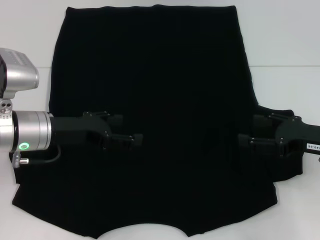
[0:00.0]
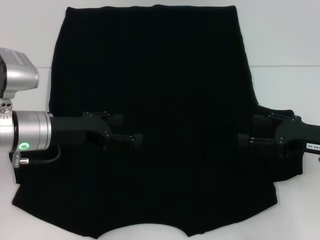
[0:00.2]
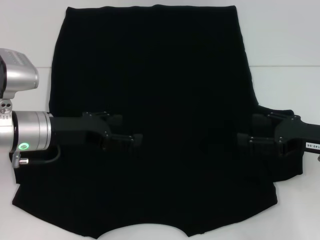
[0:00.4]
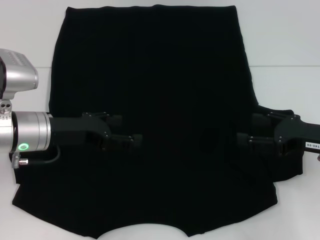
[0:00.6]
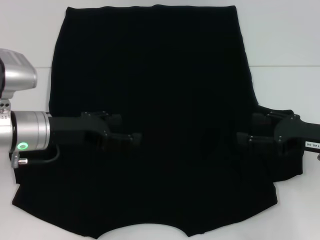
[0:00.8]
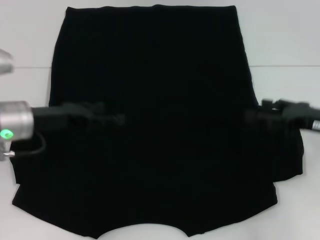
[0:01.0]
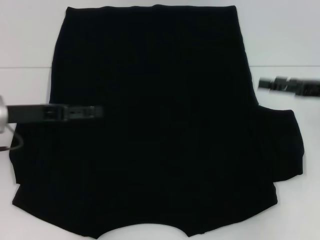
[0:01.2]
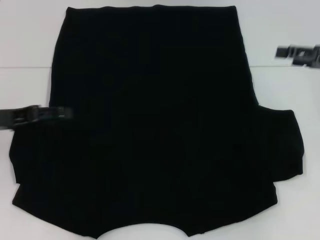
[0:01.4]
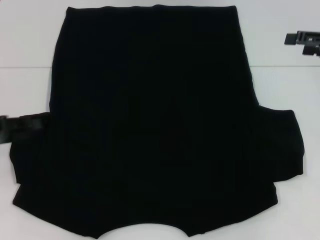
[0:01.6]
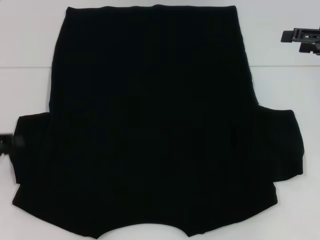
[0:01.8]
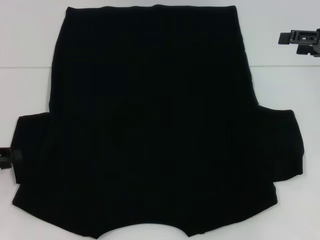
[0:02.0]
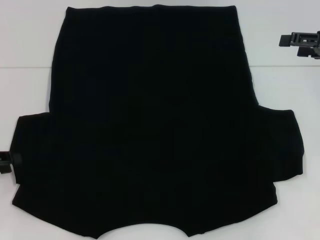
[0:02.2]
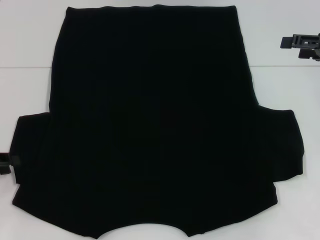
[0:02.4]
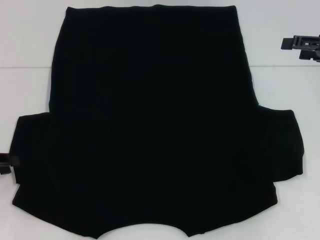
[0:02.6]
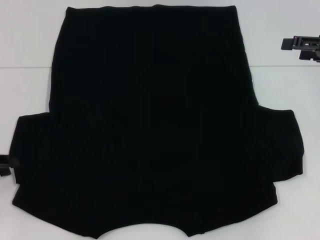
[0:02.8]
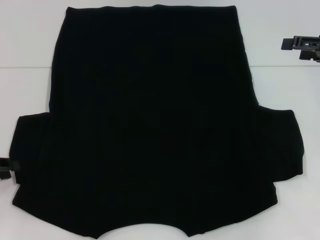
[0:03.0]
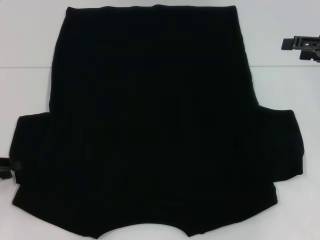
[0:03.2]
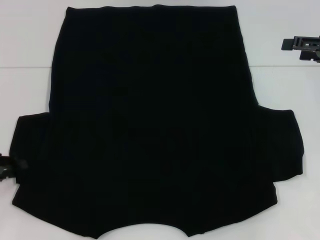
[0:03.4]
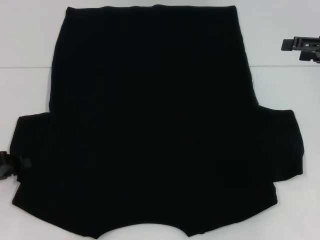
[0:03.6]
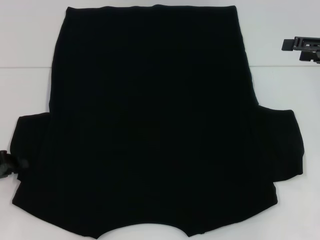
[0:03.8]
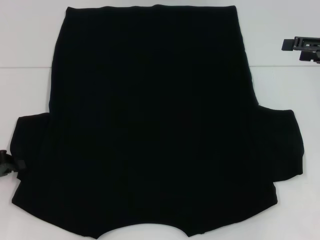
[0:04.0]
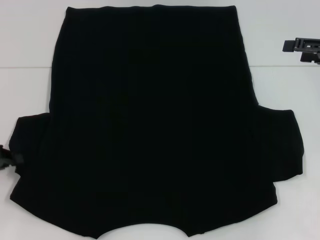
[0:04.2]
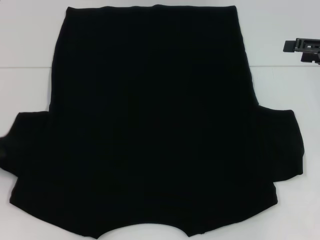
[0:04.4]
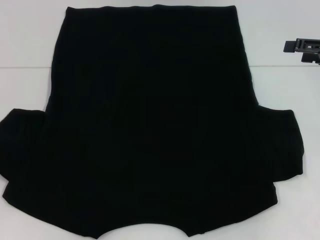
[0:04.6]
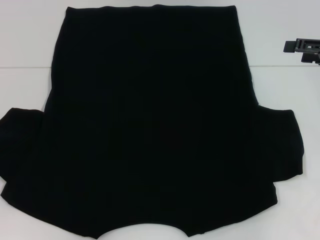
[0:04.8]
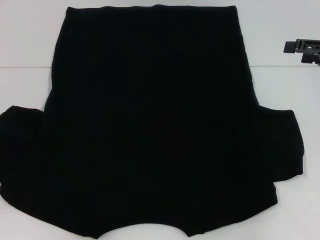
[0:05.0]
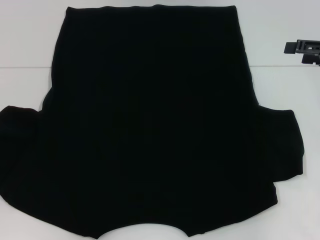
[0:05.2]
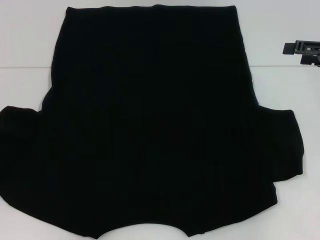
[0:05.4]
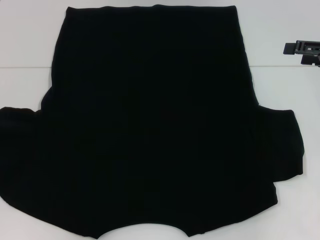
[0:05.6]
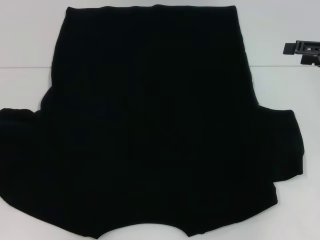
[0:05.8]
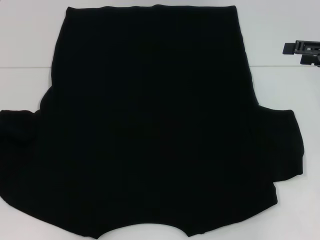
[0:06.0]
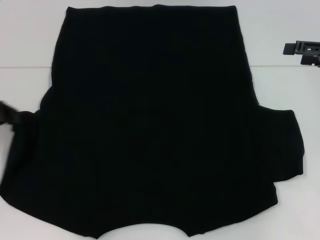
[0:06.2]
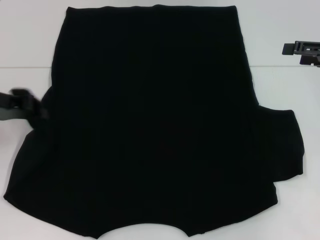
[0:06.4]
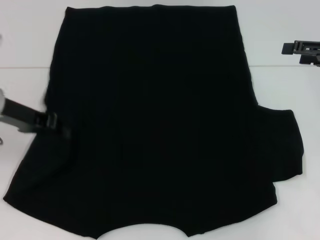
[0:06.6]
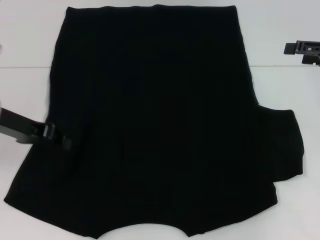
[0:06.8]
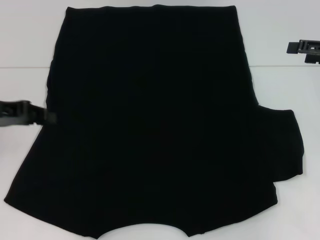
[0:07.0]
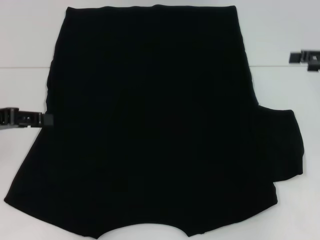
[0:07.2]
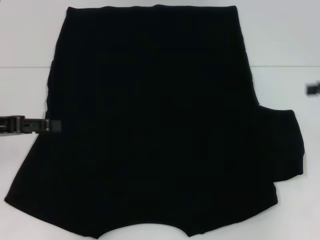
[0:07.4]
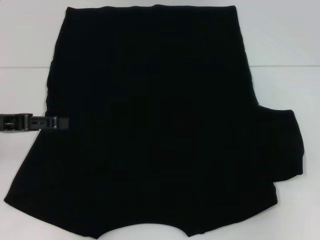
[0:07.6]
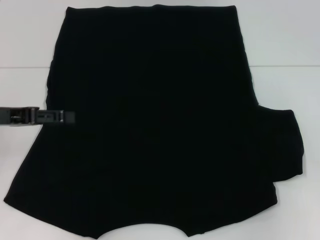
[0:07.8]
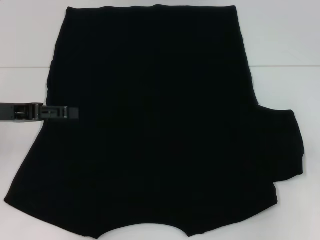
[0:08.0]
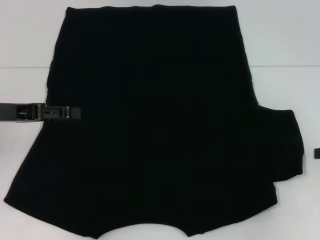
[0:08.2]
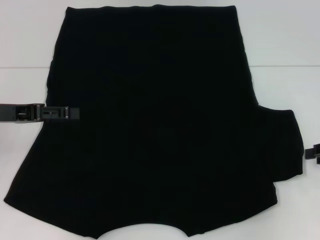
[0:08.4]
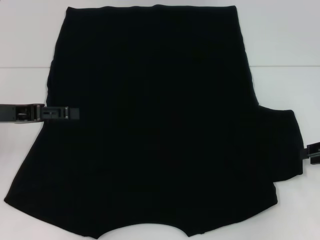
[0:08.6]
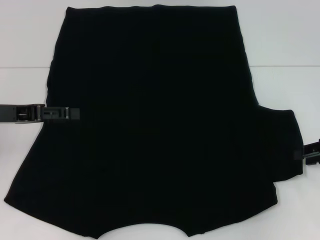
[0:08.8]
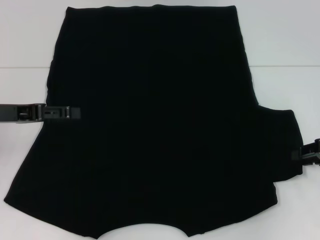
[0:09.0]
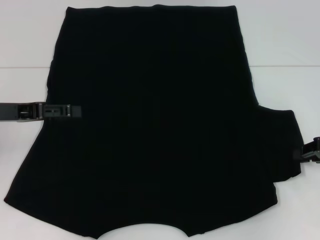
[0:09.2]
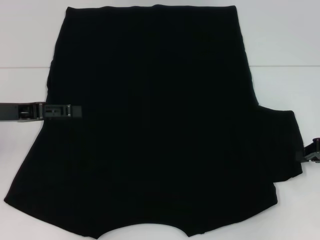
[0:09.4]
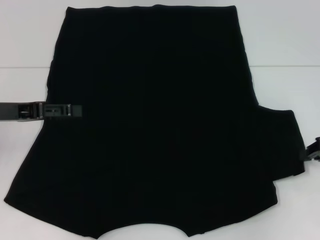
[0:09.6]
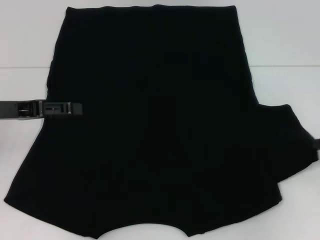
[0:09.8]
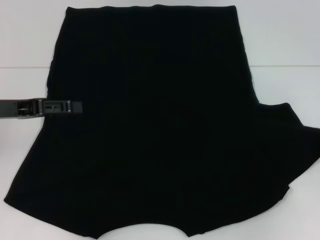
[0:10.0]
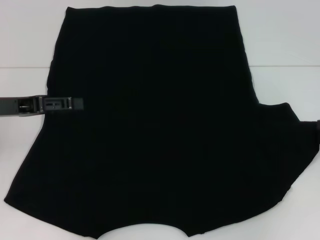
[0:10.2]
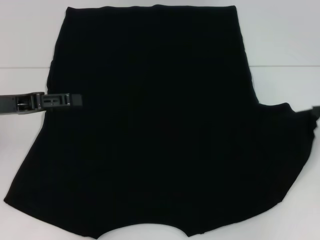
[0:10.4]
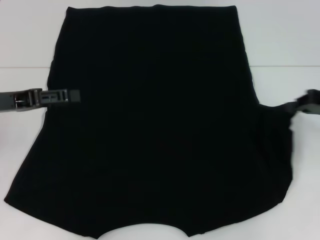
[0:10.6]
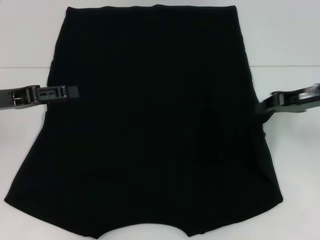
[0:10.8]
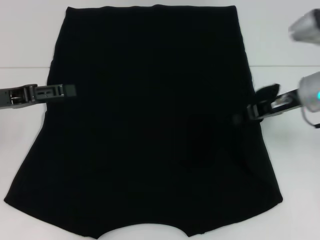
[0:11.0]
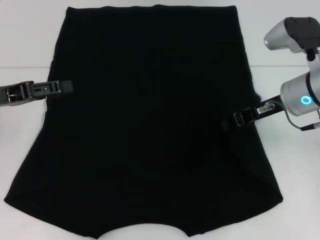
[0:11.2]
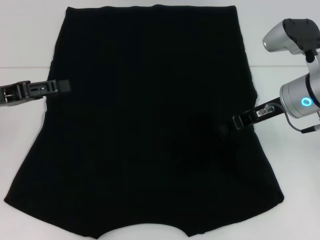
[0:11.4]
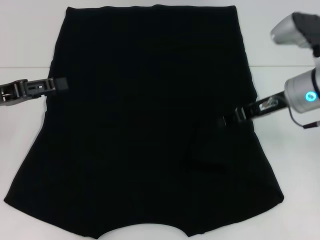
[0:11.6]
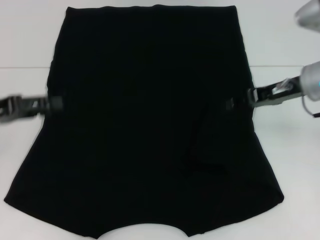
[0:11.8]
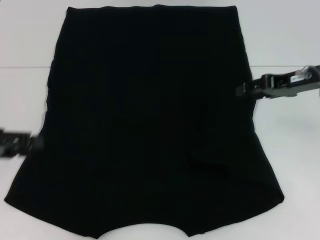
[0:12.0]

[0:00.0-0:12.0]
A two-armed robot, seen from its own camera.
Step, 0.0 to 7.4 s: Fold the bottom left sleeve with your left hand.
Step, 7.6 to 11.4 s: Fold the bottom right sleeve with your right hand.
0.0 to 1.6 s: The right gripper goes about 15 cm upward and forward; the left gripper goes approximately 15 cm to the left.
1.6 to 3.0 s: The left gripper ends up roughly 5 cm from where it was.
3.0 to 4.4 s: The left gripper closes its fingers.
4.4 to 6.0 s: The left gripper ends up approximately 5 cm from where it was.
6.0 to 7.6 s: The left gripper travels to the right by some 10 cm, and opens, while the right gripper heads to the right and backward, covering roughly 10 cm.
9.0 to 10.4 s: The right gripper moves about 5 cm, and closes.
10.4 to 12.0 s: The left gripper shifts by about 5 cm. Meanwhile the right gripper is displaced to the left by approximately 10 cm, and opens.

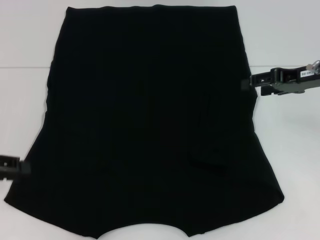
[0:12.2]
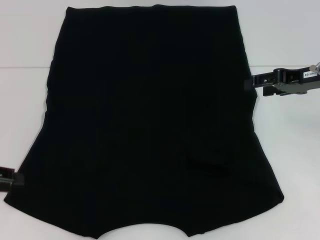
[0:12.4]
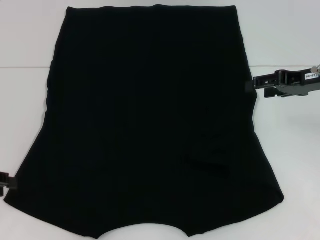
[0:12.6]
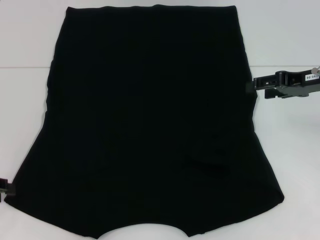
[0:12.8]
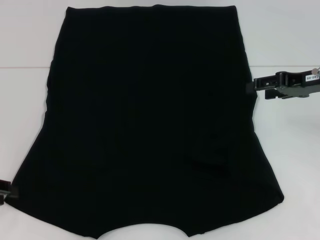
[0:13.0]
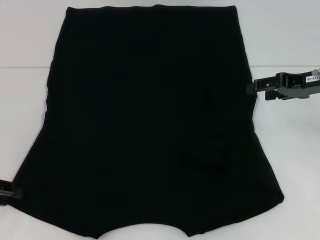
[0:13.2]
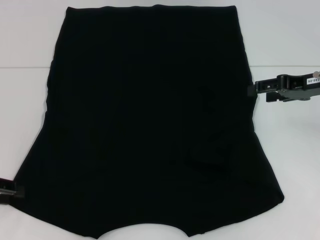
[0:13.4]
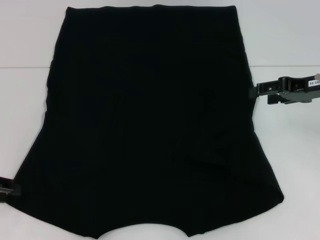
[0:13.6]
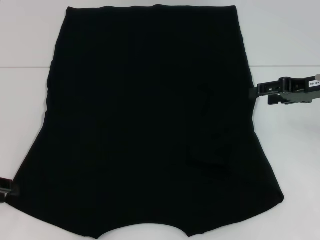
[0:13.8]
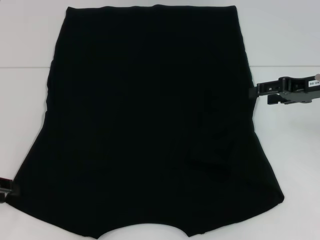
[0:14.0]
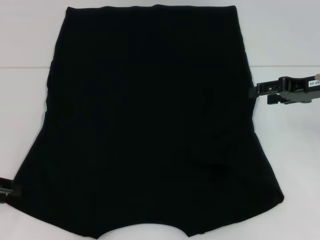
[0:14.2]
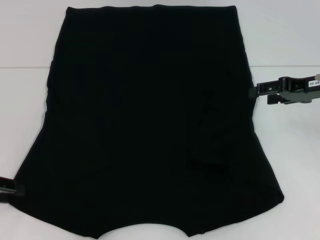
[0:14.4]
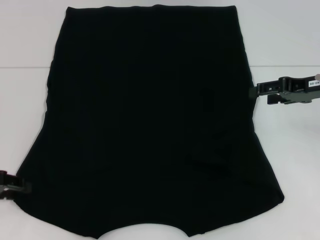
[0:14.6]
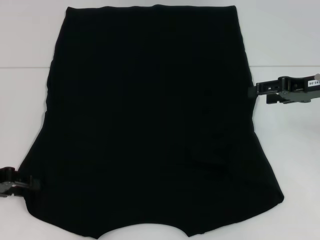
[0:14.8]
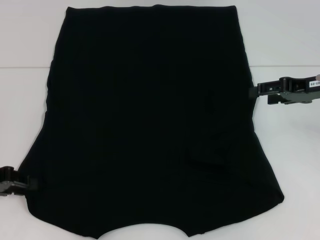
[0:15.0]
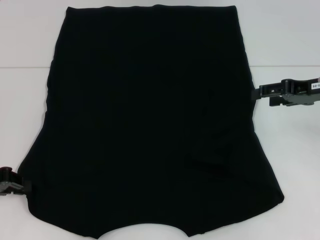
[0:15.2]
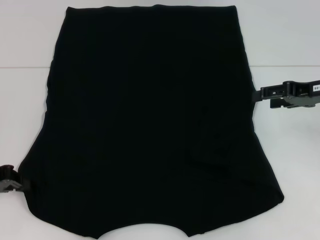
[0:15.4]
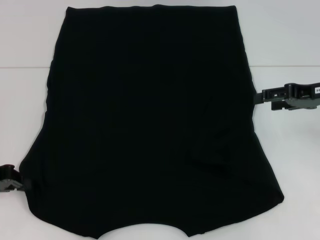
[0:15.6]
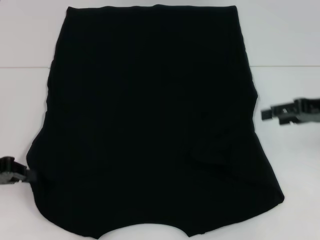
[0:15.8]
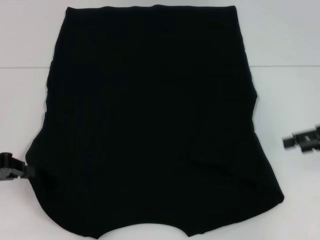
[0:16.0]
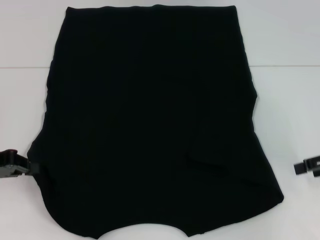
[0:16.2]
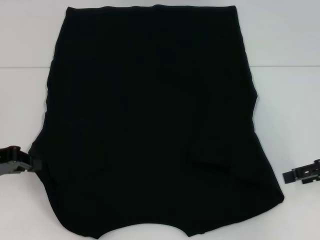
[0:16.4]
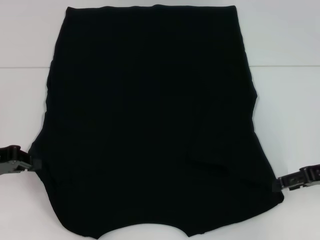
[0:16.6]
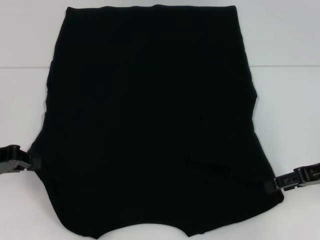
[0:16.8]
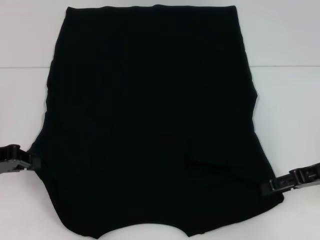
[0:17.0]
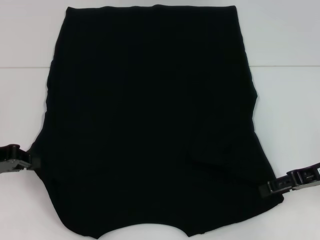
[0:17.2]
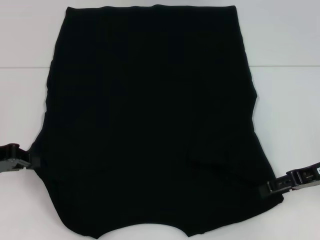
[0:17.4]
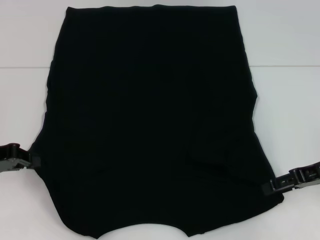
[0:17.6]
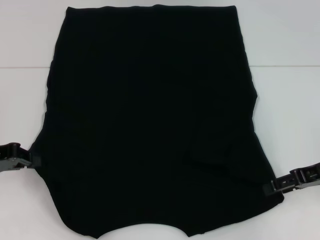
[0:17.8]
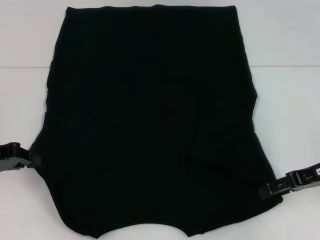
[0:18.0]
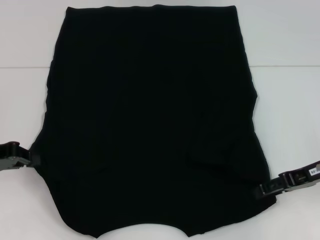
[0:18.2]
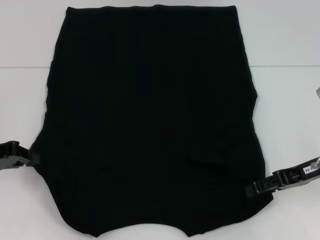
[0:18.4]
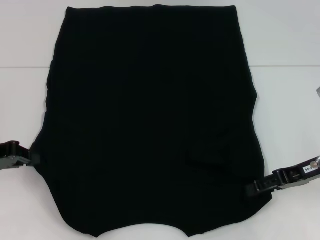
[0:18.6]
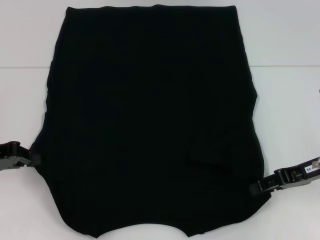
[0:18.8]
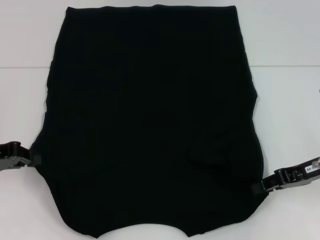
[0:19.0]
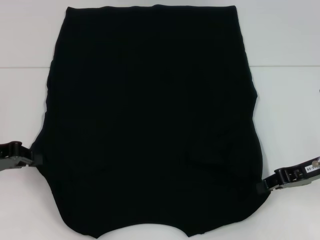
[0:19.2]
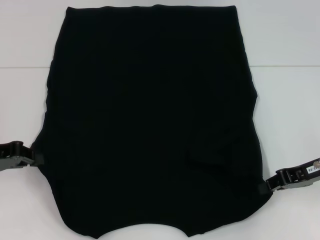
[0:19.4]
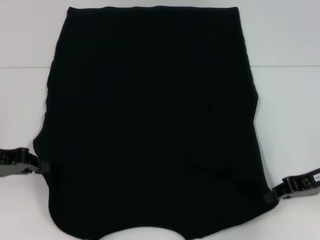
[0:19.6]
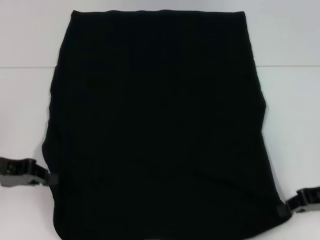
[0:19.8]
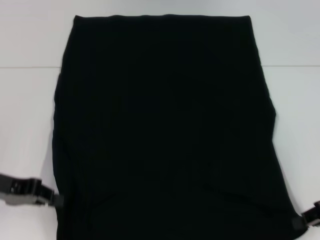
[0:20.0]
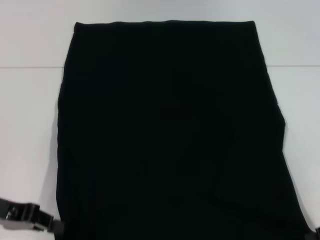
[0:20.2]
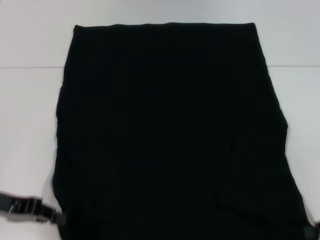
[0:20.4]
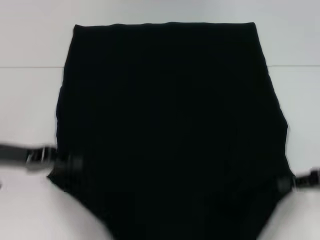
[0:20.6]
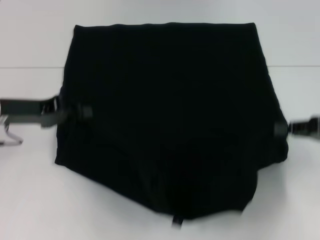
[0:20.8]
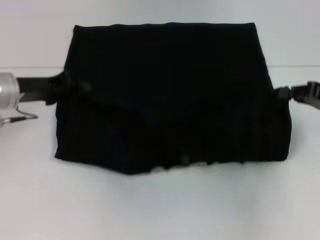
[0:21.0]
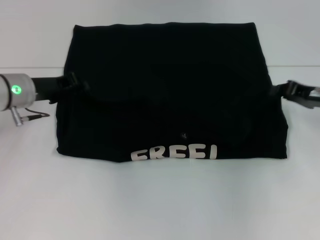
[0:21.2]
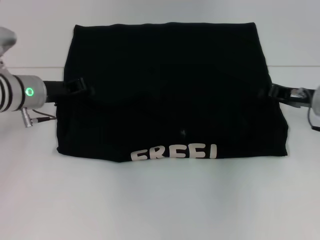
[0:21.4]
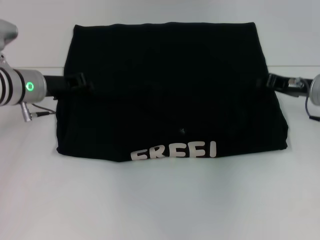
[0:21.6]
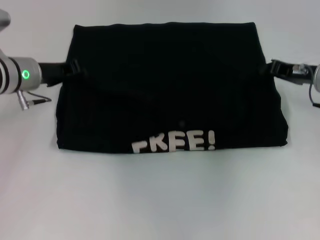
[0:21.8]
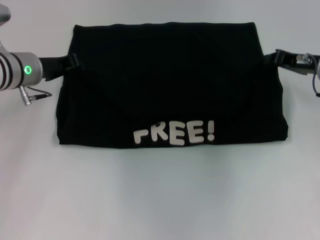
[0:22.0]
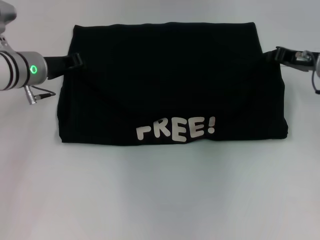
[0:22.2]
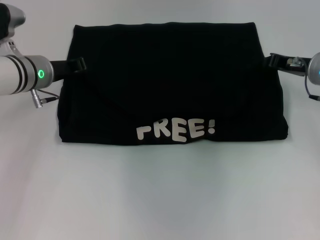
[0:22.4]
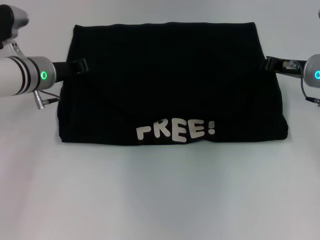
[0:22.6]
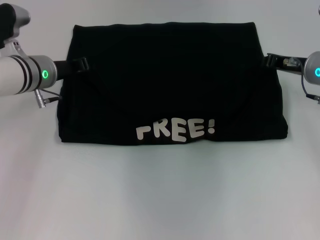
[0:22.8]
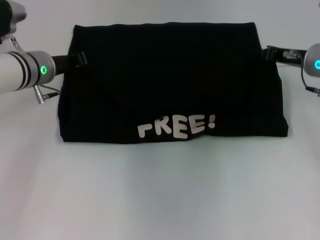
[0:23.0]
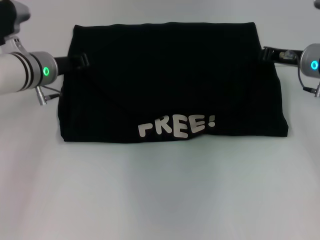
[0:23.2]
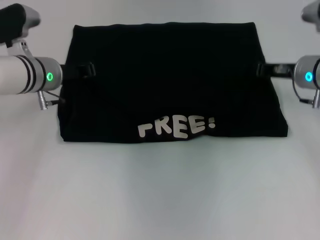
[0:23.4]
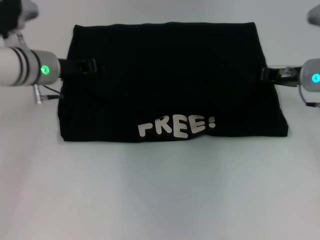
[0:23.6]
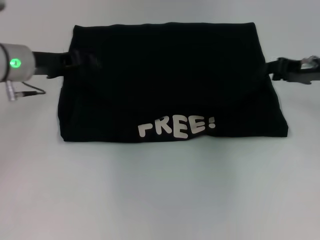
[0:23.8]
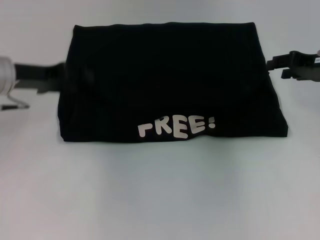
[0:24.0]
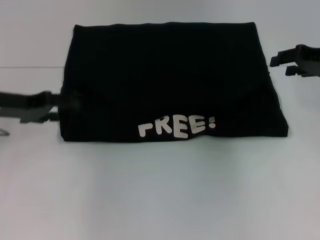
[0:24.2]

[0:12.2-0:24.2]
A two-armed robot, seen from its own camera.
Step, 12.2 to 16.2 s: Grab the bottom left corner with your left hand.
Step, 16.4 to 19.6 s: Grab the bottom right corner with your right hand.
Step, 19.8 to 23.8 s: Fold the clothes with your left hand.
Step, 19.8 to 23.8 s: Fold the clothes with your right hand.
12.2 to 15.2 s: The grippers make only small movements.
15.2 to 16.6 s: The right gripper is displaced backward and downward by about 10 cm. The left gripper closes up.
16.6 to 18.2 s: The grippers move only a little.
18.2 to 19.8 s: The right gripper closes.
19.8 to 21.2 s: The left gripper goes about 10 cm forward and to the right; the right gripper travels forward by some 10 cm.
21.2 to 22.6 s: The left gripper shifts by some 5 cm. The right gripper shifts about 5 cm forward.
22.6 to 24.2 s: The right gripper goes some 10 cm upward and to the right, and opens up, while the left gripper heads to the left and backward, covering approximately 10 cm, and opens.
